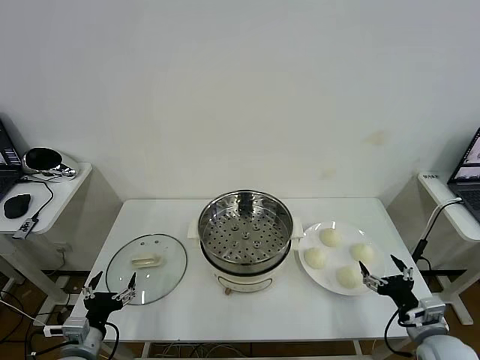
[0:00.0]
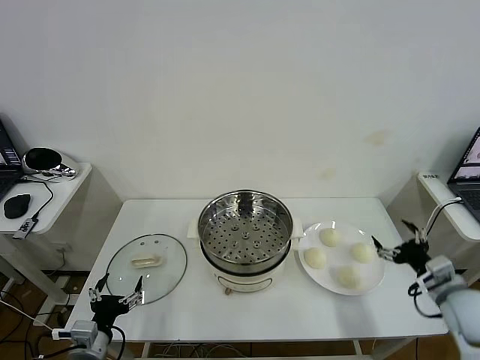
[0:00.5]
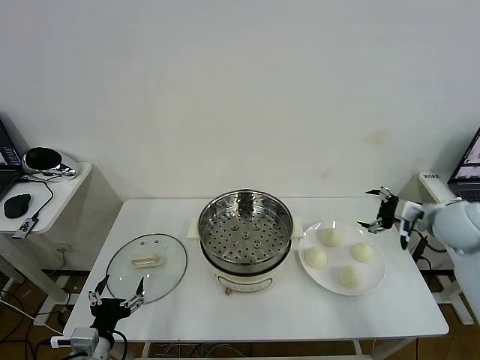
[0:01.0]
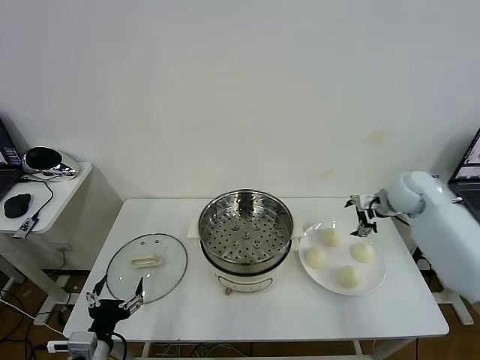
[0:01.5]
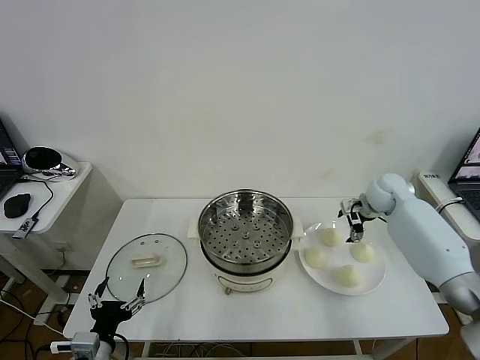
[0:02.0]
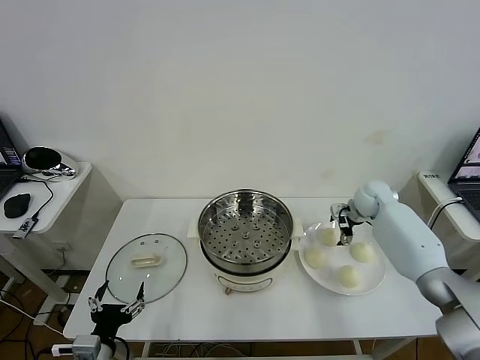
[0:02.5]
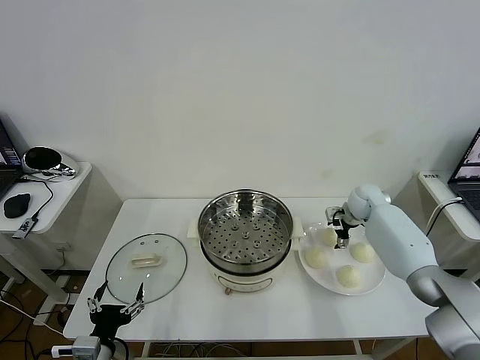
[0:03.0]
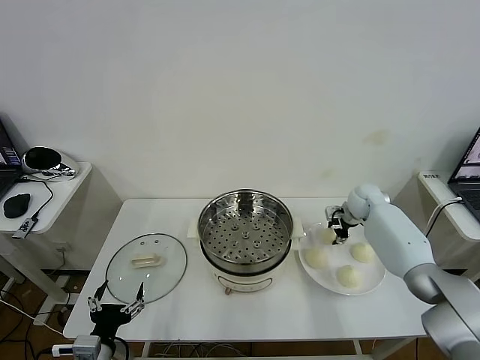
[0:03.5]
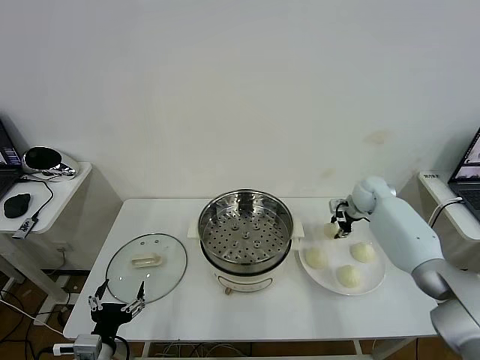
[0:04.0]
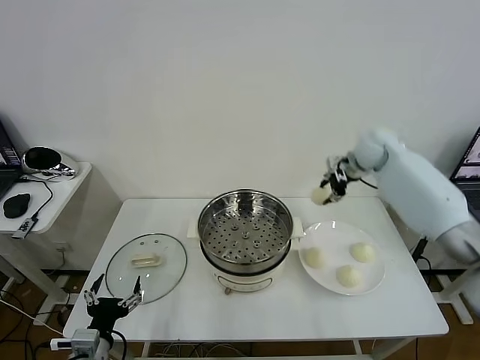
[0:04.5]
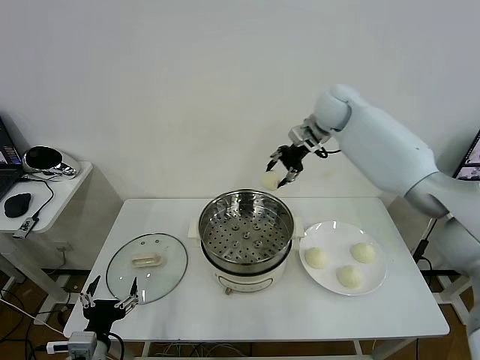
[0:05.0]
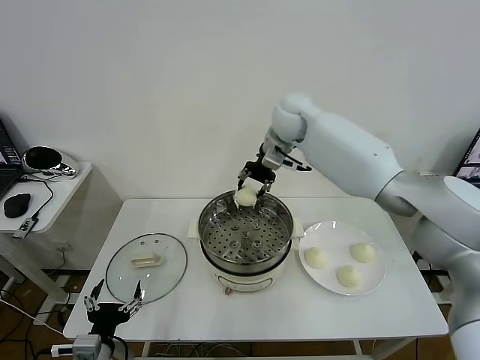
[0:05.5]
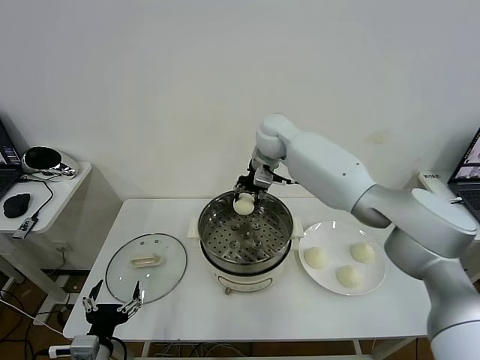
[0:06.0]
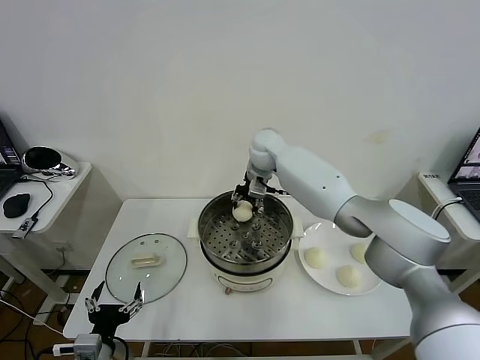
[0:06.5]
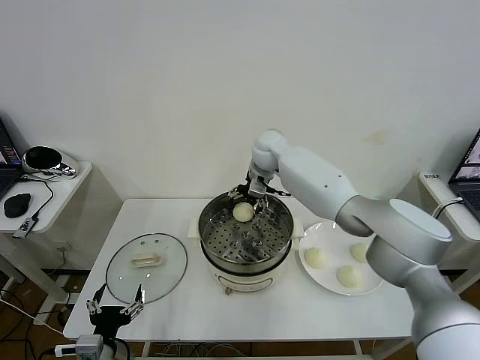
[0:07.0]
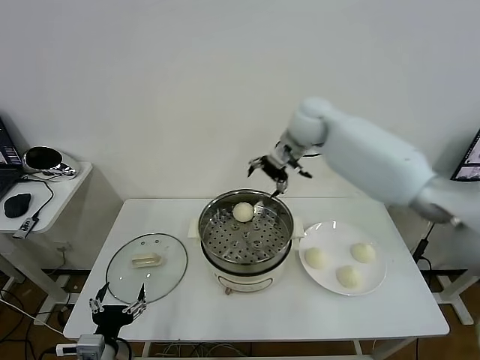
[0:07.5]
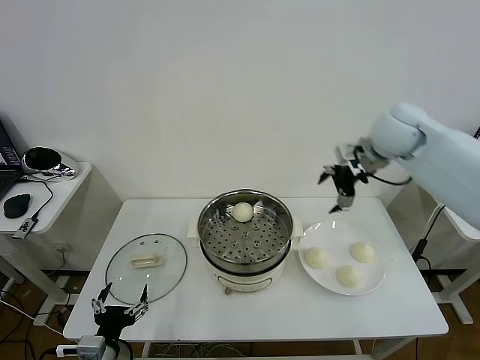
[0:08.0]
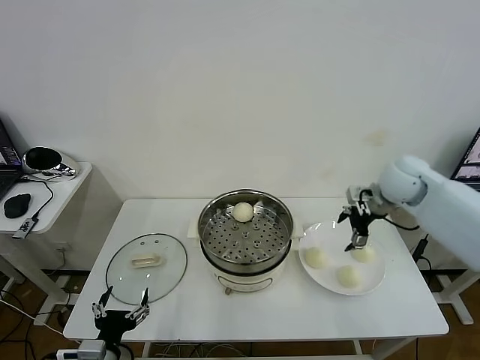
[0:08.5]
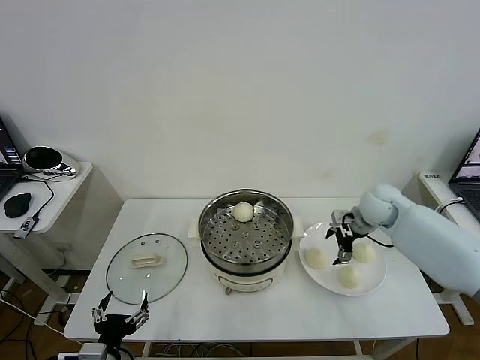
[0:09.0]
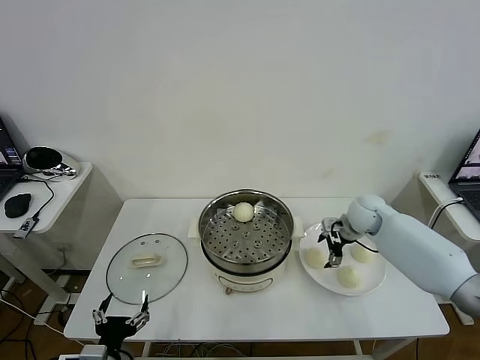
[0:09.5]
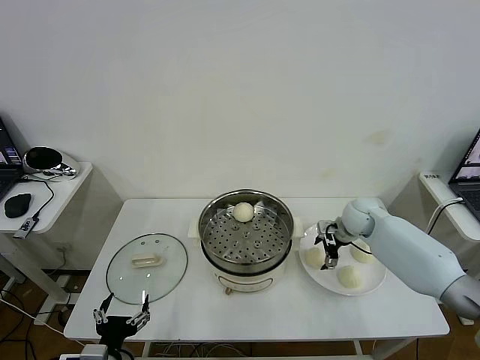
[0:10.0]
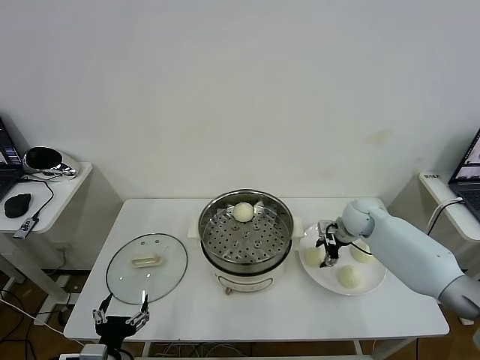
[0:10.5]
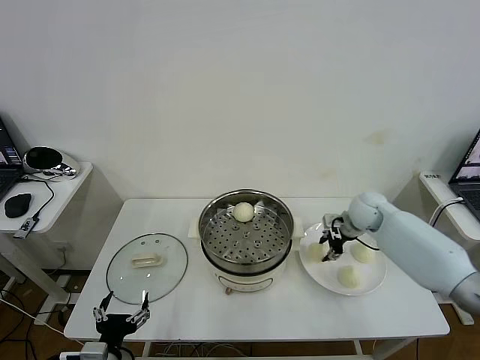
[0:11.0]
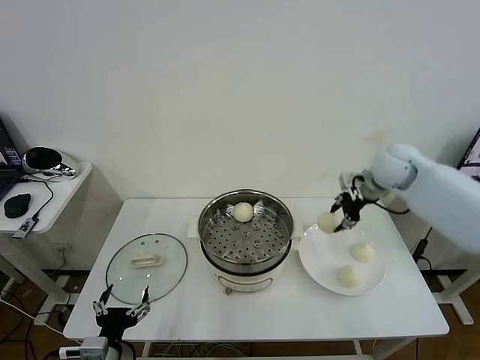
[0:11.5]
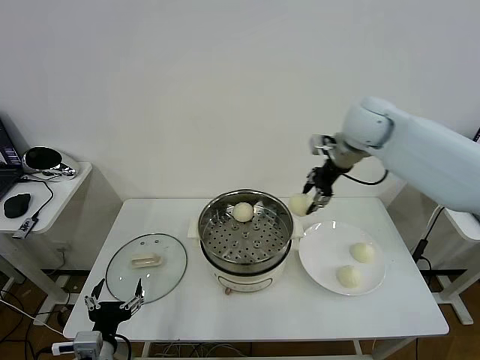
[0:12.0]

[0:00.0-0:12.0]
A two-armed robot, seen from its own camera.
Task of the whole recording: take steamed baozi put them in steamer then cover it.
Step, 0:00.0 to 0:03.5: Grasp the baozi in the plate with right gripper.
Step, 0:04.0 to 0:07.0: Place the baozi on the steamer with right gripper.
Step, 0:07.5 to 0:10.5: Grasp the baozi in the plate with right gripper.
0:02.0 to 0:04.0: The right gripper closes its fingers.
0:04.0 to 0:06.0: The right gripper is displaced to the left and upward by about 30 cm.
0:06.0 to 0:08.0: The right gripper travels to the right and backward by roughly 25 cm, and opens its fingers.
0:08.0 to 0:10.0: The right gripper moves downward, approximately 25 cm.
0:10.0 to 0:12.0: The right gripper shifts roughly 25 cm upward, and closes up.

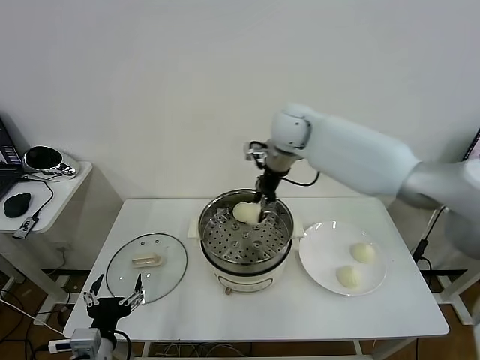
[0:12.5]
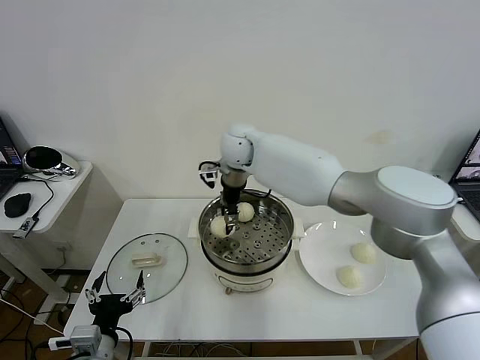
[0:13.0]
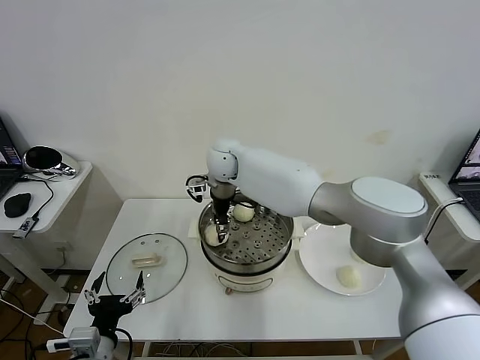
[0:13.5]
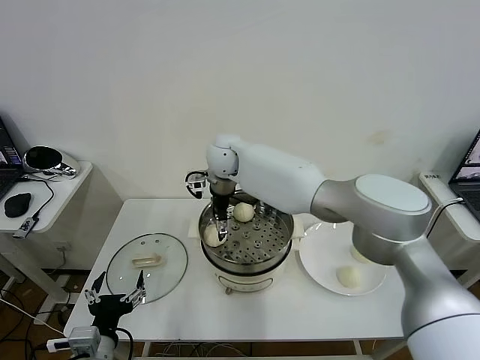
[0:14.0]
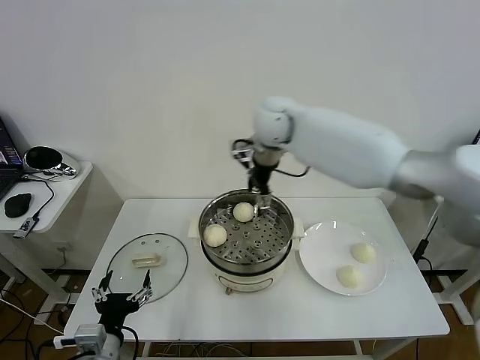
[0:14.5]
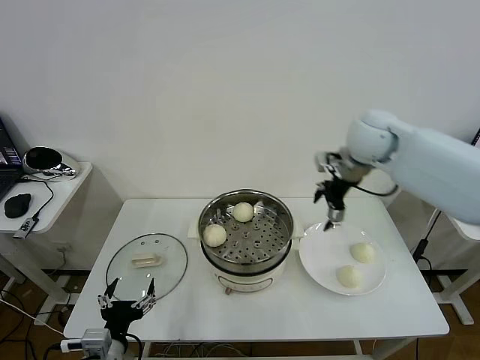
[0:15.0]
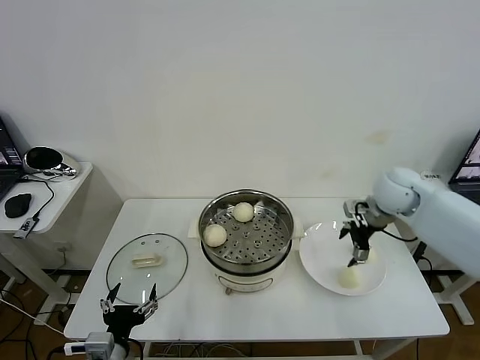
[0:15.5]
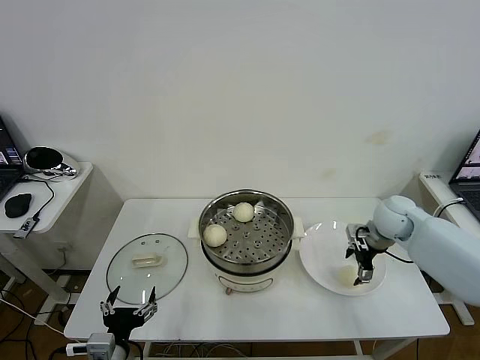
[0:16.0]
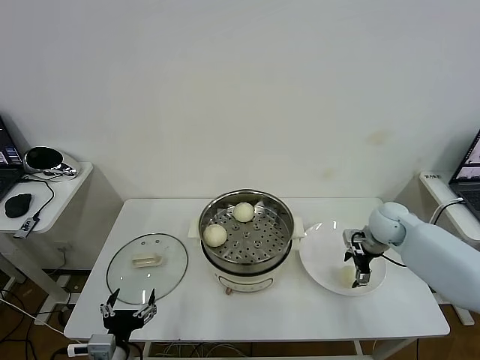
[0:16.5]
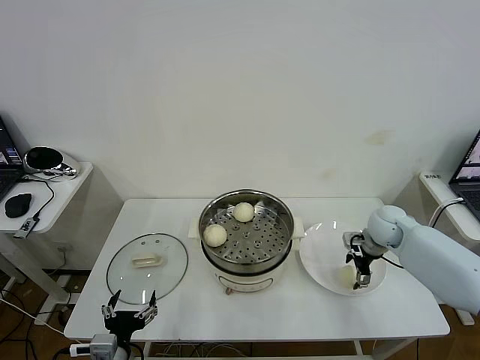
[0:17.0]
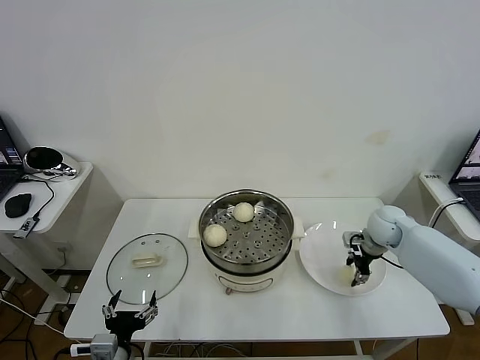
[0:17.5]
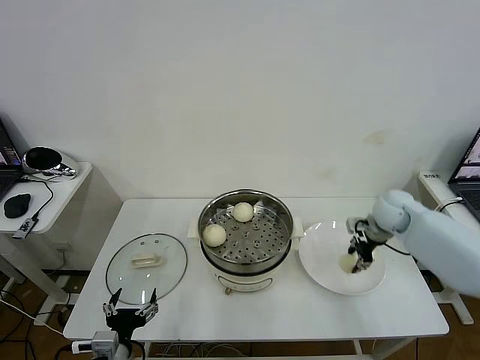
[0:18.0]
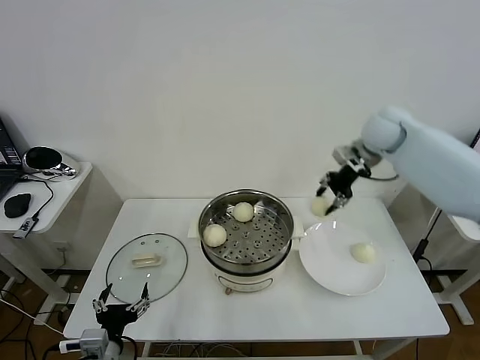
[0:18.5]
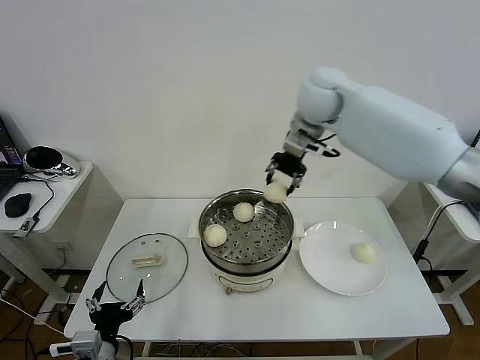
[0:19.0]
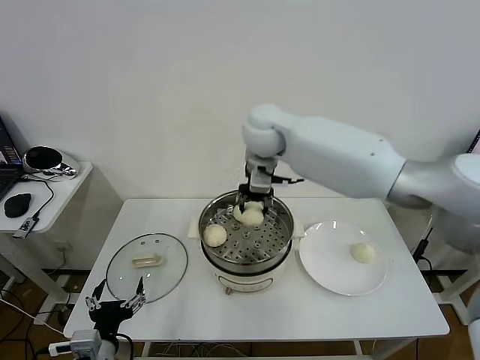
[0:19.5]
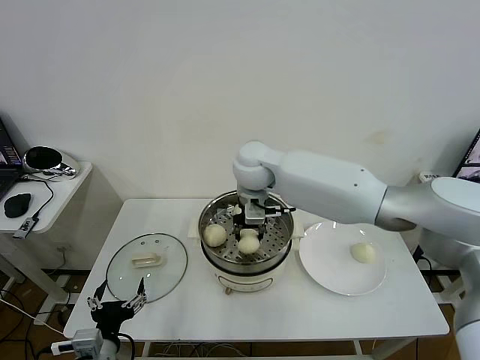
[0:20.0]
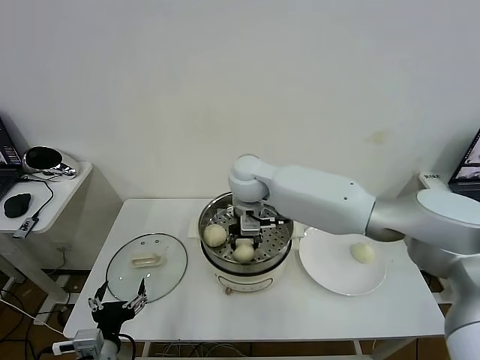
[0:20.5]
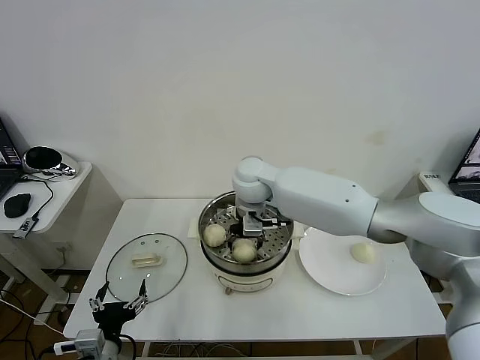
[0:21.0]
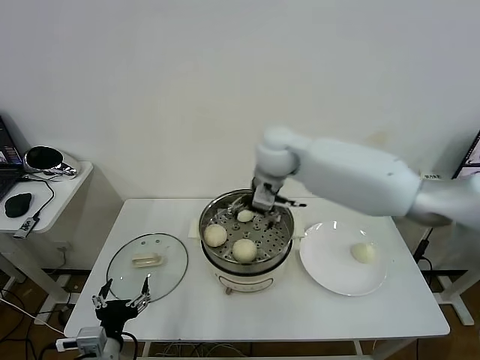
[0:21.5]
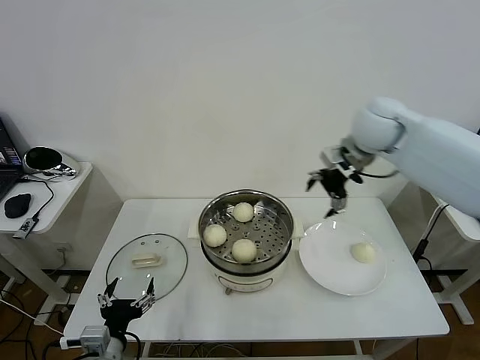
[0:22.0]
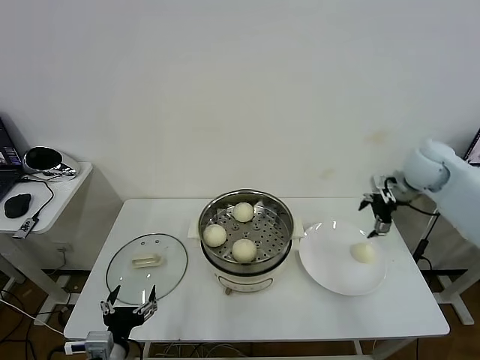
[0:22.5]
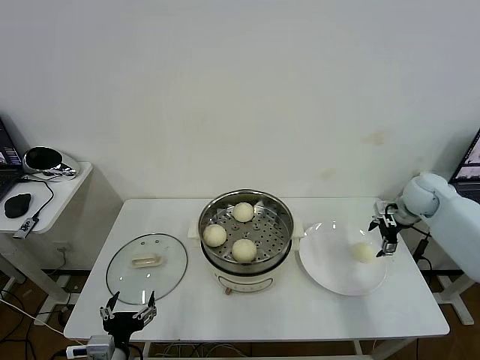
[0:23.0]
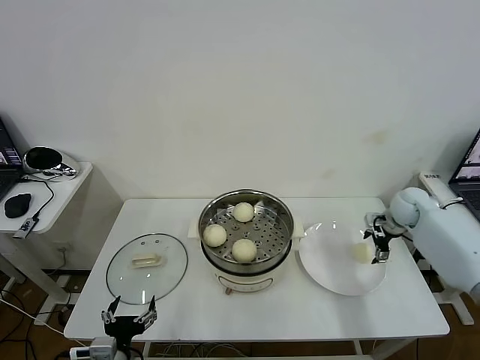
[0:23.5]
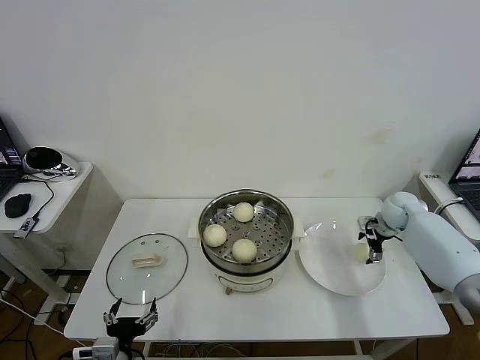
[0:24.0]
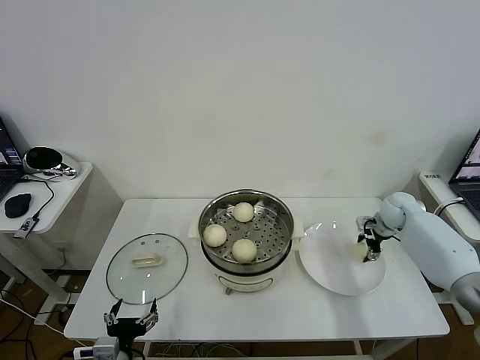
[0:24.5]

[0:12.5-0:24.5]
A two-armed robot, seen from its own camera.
Task of the whole recording: take steamed baozi put them in steamer then cover it.
Step, 0:14.5 to 0:17.5: Grasp the baozi in the plate with right gripper.
Step, 0:18.0 to 0:21.0: Place the baozi on the steamer with right gripper.
0:12.5 to 0:14.5: The right gripper moves approximately 10 cm to the left and comes back, and opens its fingers.
0:14.5 to 0:16.5: The right gripper shifts roughly 35 cm to the right and downward.
0:16.5 to 0:18.5: The right gripper goes about 25 cm upward and forward, and closes its fingers.
0:18.5 to 0:20.5: The right gripper heads to the left and downward, covering roughly 30 cm.
0:20.5 to 0:22.5: The right gripper shifts about 40 cm to the right, and opens up.
0:22.5 to 0:24.5: The right gripper goes approximately 15 cm downward, and closes its fingers.

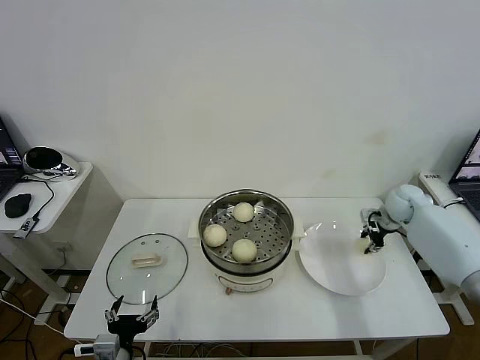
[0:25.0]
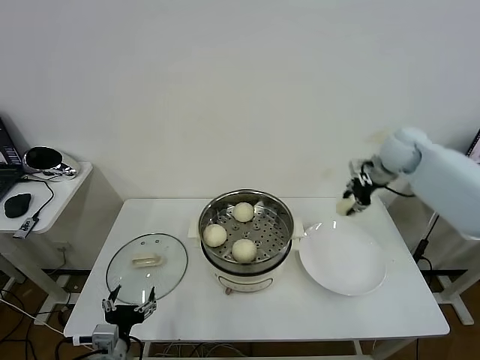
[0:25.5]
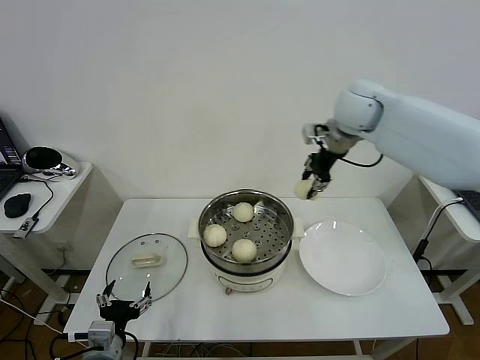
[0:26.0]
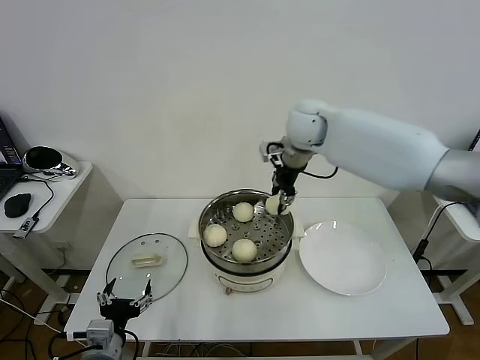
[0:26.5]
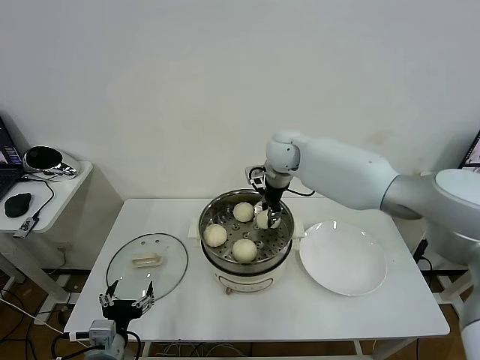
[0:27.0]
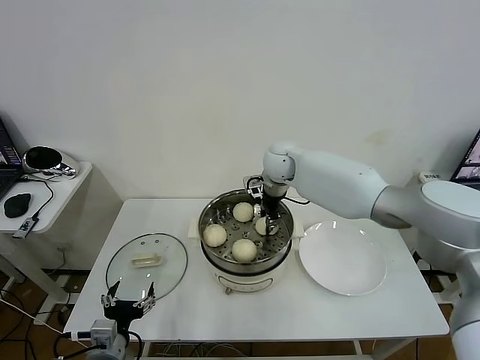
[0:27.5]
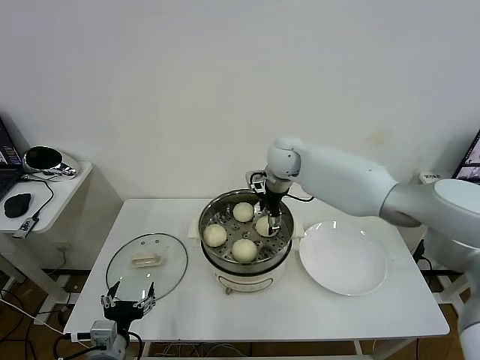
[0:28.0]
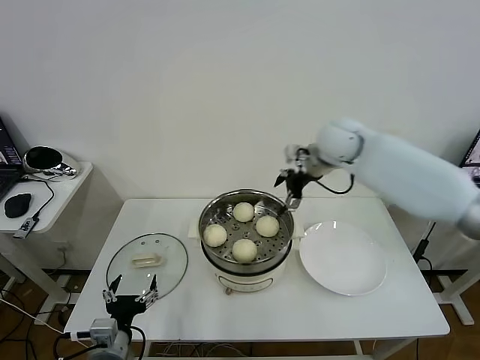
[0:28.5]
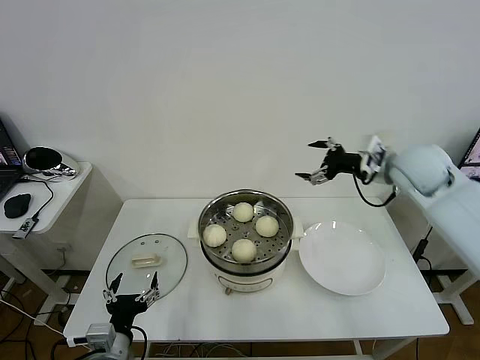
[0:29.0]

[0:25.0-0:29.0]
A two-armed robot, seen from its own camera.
Task of the whole recording: take steamed baozi put them in steamer then cover it.
Step, 0:25.0 to 0:27.5: Place the baozi on the steamer with right gripper.
0:25.0 to 0:27.0: The right gripper goes roughly 35 cm to the left.
0:27.0 to 0:29.0: The right gripper heads to the right and backward, covering approximately 30 cm, and opens.
